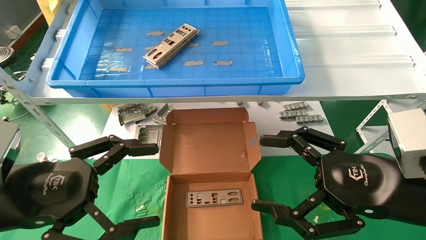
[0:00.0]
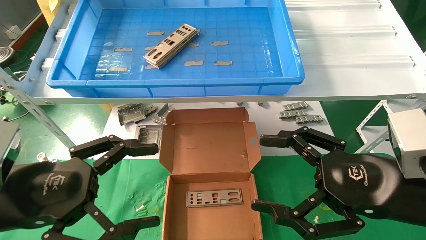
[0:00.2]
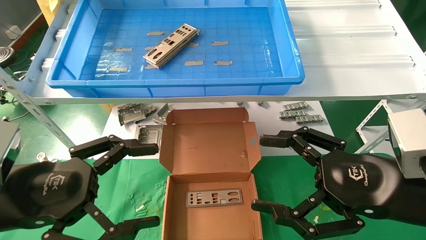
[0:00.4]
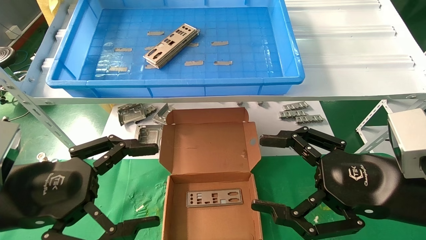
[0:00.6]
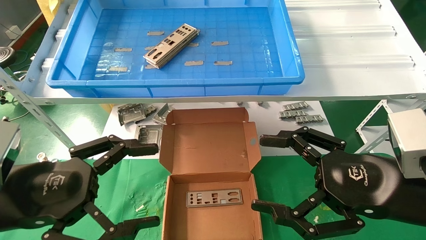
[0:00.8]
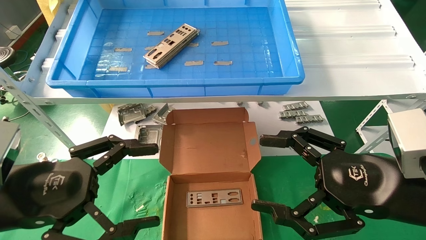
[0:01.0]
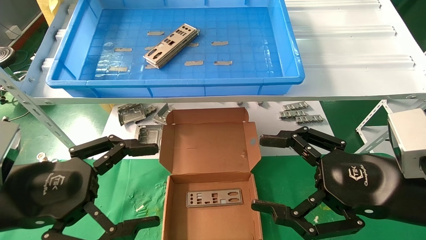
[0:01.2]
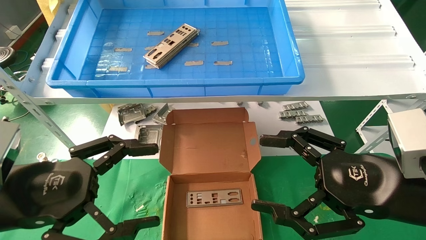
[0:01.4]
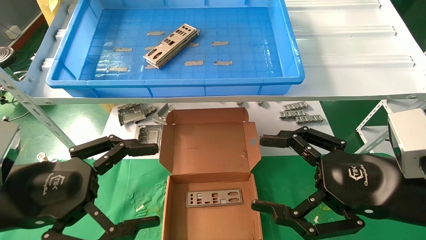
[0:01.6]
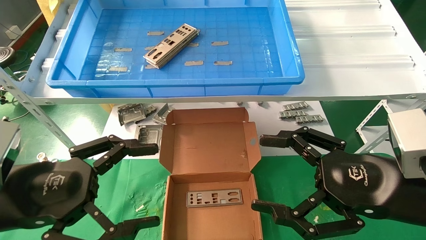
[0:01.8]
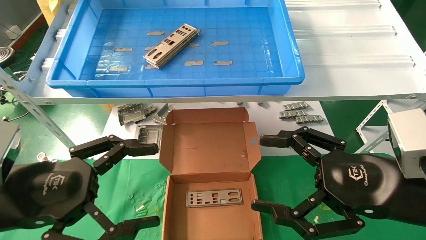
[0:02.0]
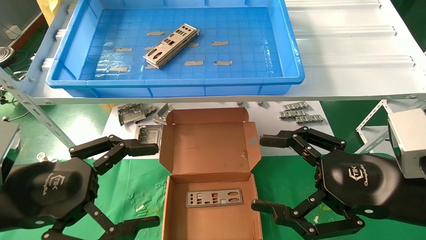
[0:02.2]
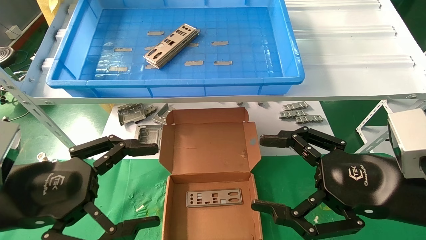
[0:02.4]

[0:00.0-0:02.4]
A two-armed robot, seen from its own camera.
Task of the whole recording: pick up the parts on the tray and put them in the cardboard box.
0:00.0 to 0:02.4: Both grippers stay put.
